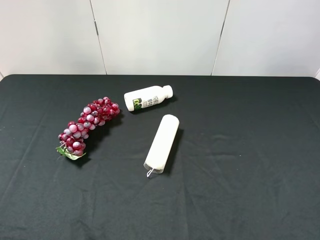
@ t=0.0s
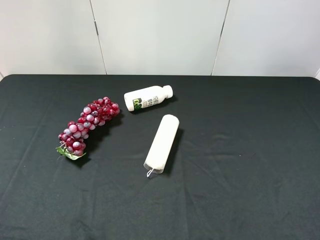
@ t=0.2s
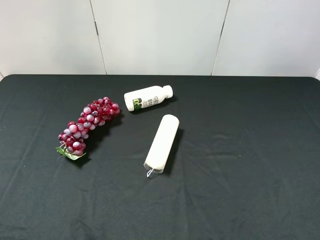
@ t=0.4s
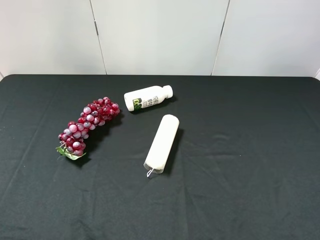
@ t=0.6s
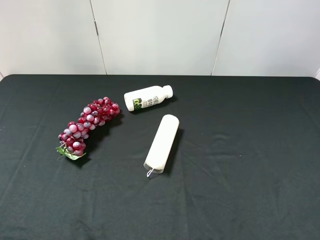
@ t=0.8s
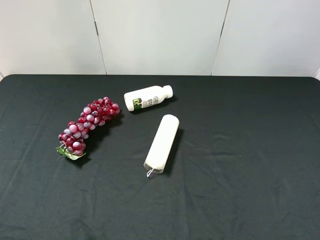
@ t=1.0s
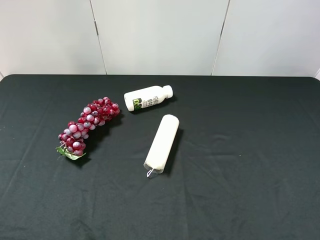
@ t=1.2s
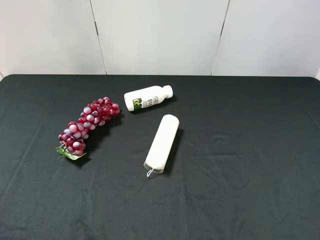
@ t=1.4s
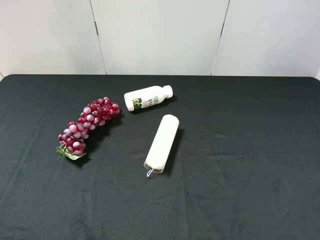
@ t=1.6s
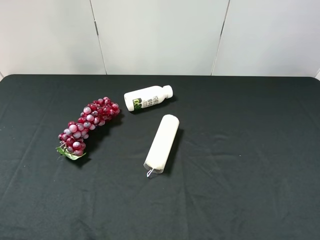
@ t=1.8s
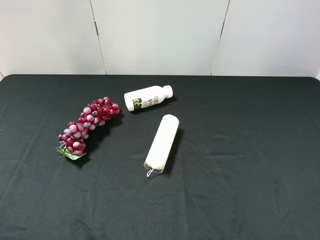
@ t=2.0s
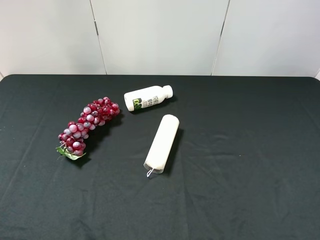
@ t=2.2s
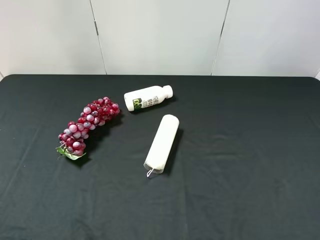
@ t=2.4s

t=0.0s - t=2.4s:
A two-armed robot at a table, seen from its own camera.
Task of the whole recording: use the right gripper to pick up the item and transfer it from the right gripper to the left gripper.
t=1.2s - t=2.4s: Both grippers stay about where they are.
